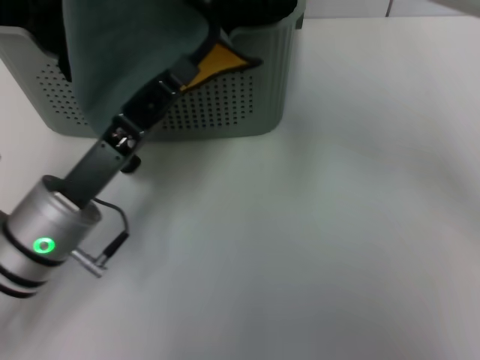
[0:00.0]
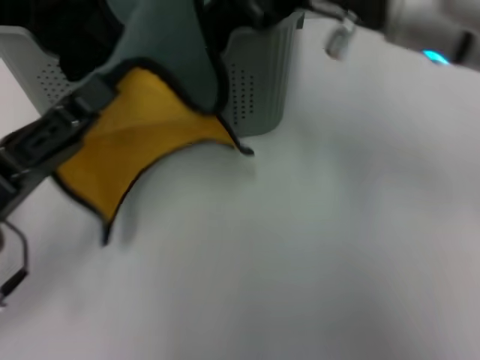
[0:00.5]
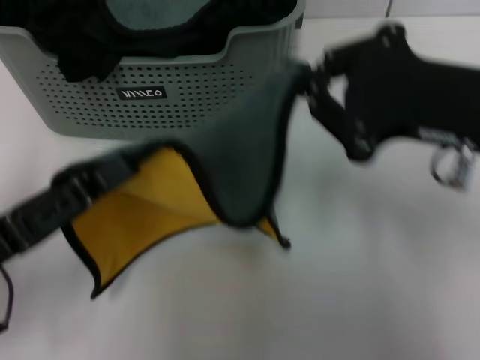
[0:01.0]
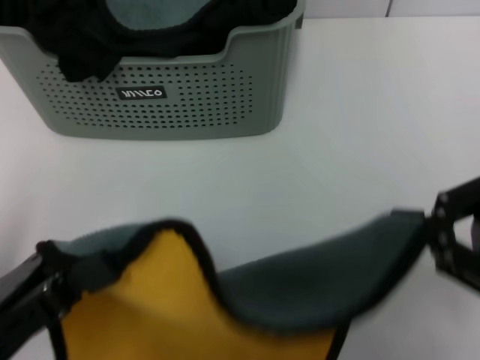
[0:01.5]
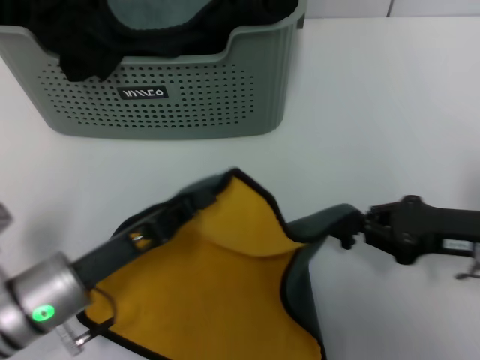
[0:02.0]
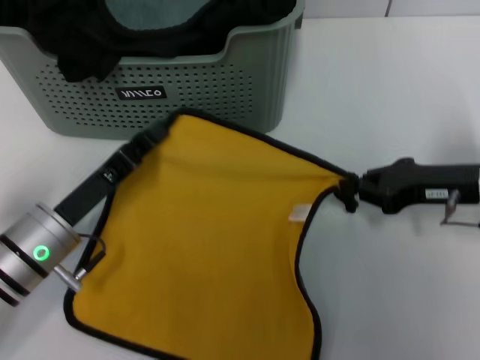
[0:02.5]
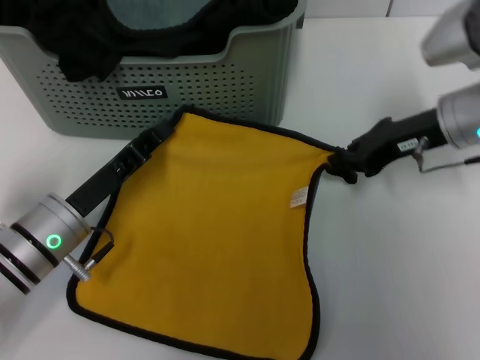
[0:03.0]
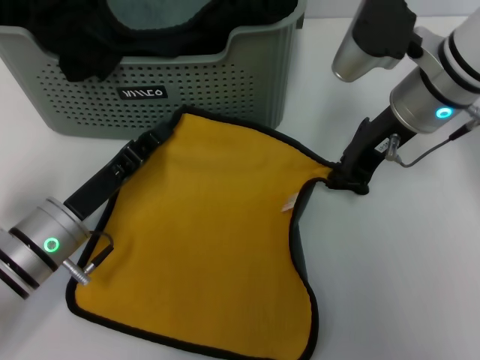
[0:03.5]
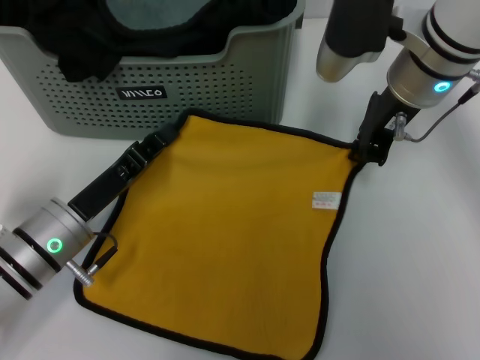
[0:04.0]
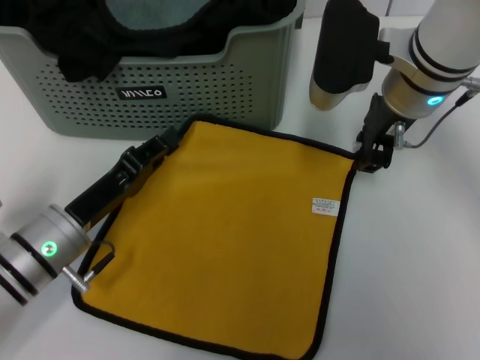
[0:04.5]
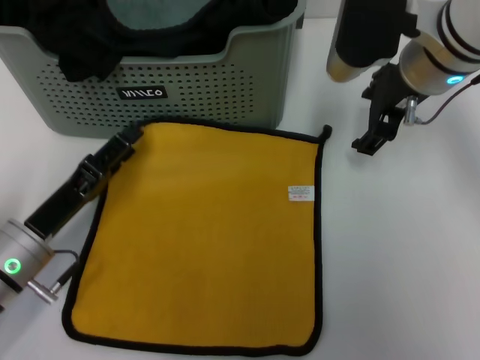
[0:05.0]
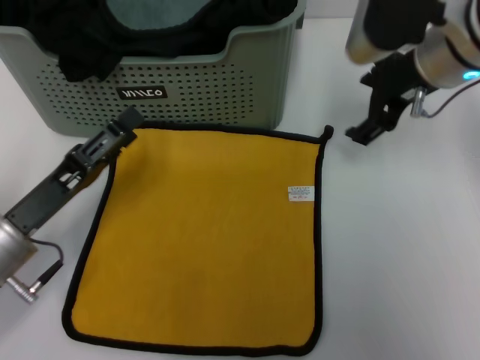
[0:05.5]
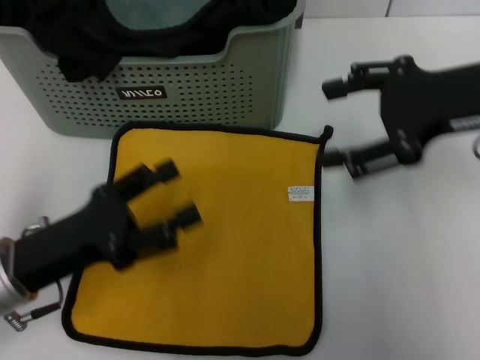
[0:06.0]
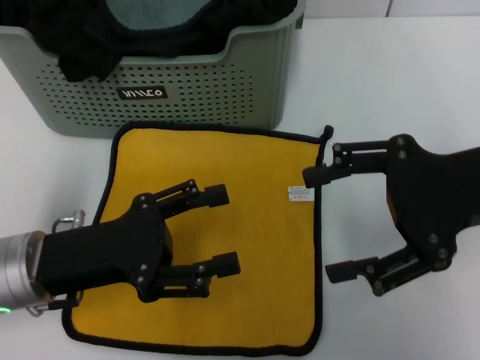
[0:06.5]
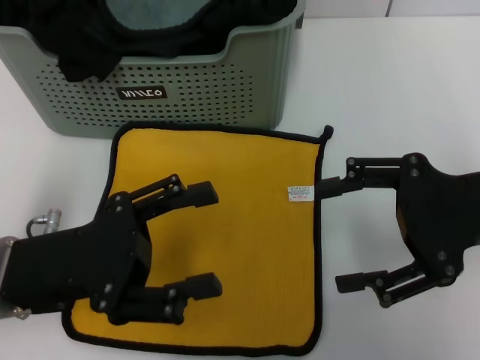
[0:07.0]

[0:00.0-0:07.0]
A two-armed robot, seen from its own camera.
Task of the whole recording: pick up the towel from the storage box and lay it flat on the table.
Step, 0:00.0 to 0:05.0: Spread the towel flat with the right gripper.
0:00.0 to 0:02.0: The right gripper travels downward and to the right by approximately 30 cm.
0:02.0 to 0:03.5: The left gripper moves about 5 cm, while the right gripper travels forward, to the left and upward by roughly 20 cm.
0:03.5 to 0:05.0: The left gripper opens its fingers. The right gripper opens its fingers.
0:05.0 to 0:07.0: The right gripper travels backward and to the right by roughly 15 cm. Meanwhile the left gripper is displaced upward by some 10 cm, and opens its fingers.

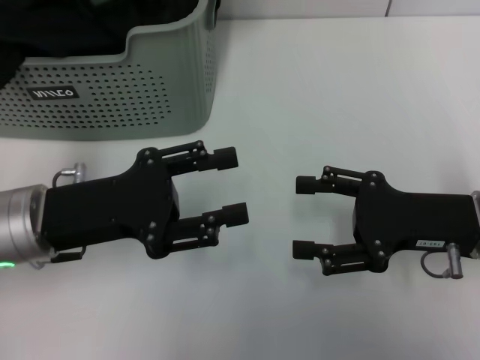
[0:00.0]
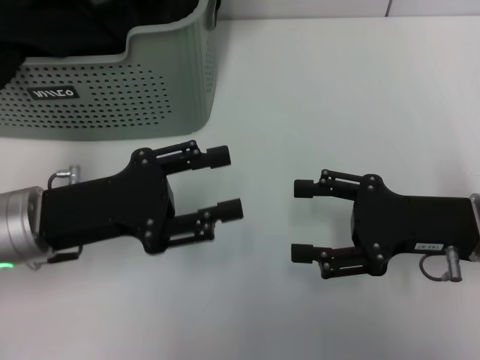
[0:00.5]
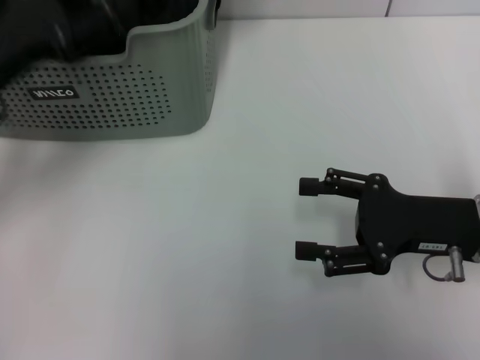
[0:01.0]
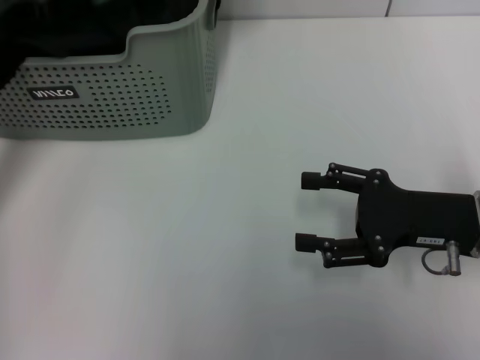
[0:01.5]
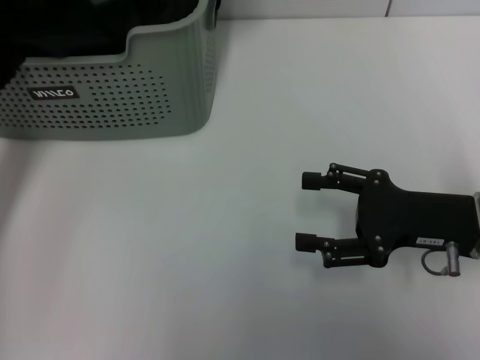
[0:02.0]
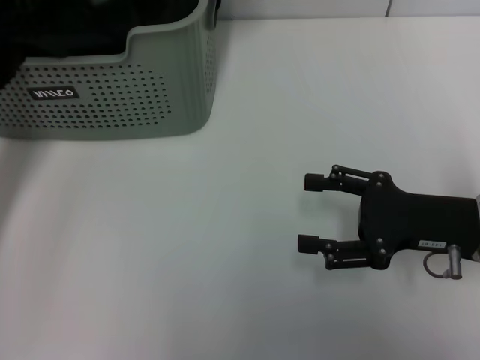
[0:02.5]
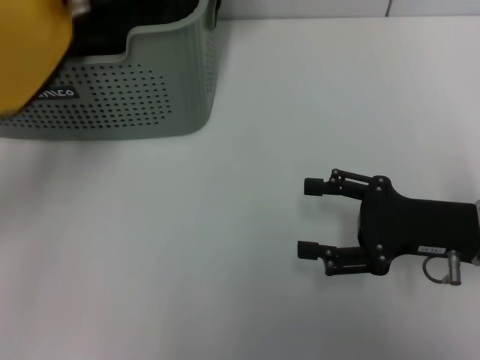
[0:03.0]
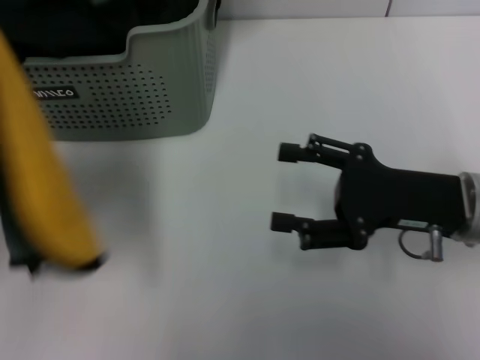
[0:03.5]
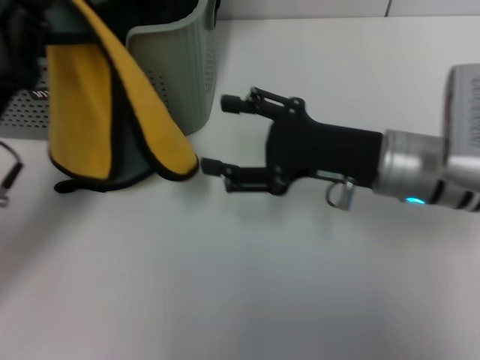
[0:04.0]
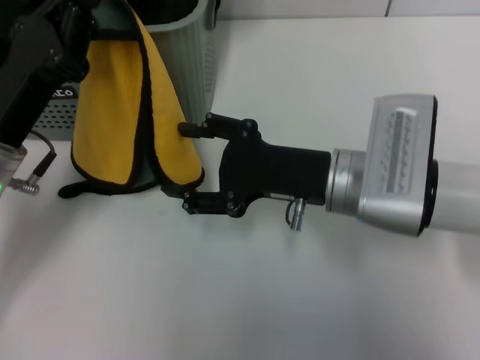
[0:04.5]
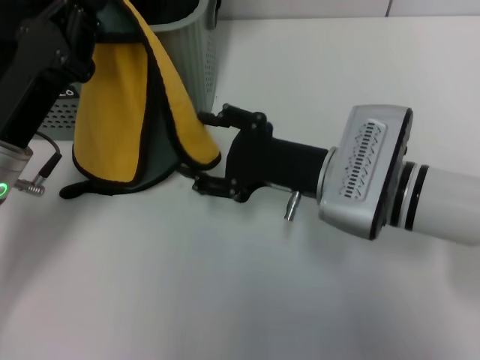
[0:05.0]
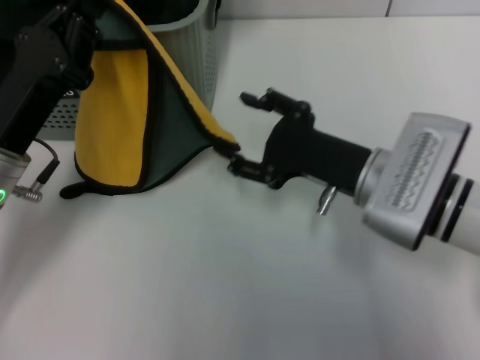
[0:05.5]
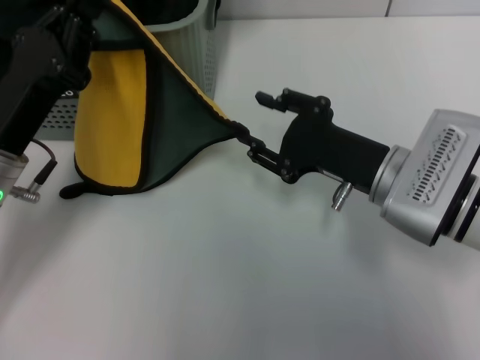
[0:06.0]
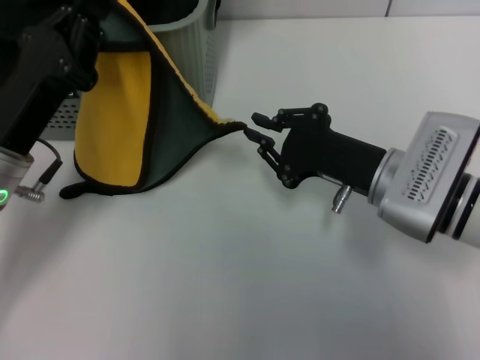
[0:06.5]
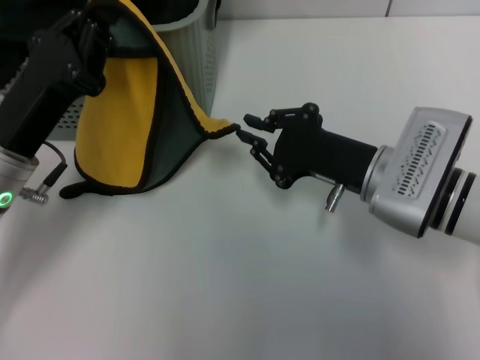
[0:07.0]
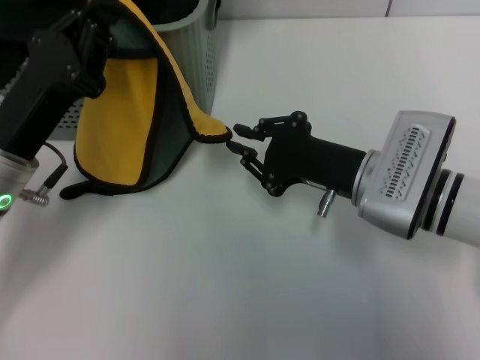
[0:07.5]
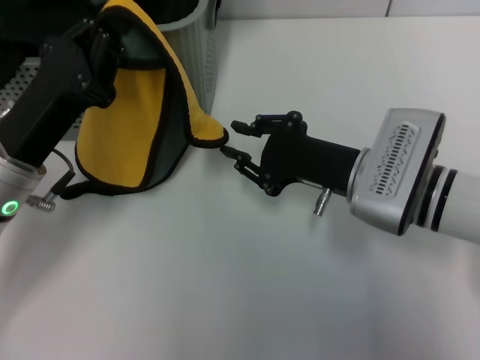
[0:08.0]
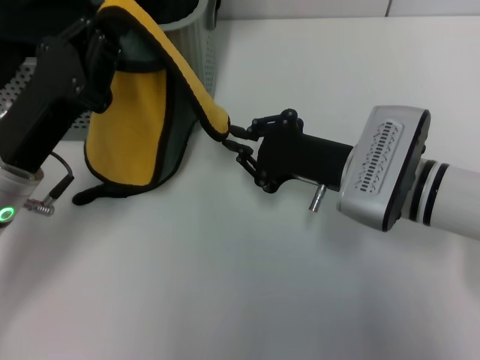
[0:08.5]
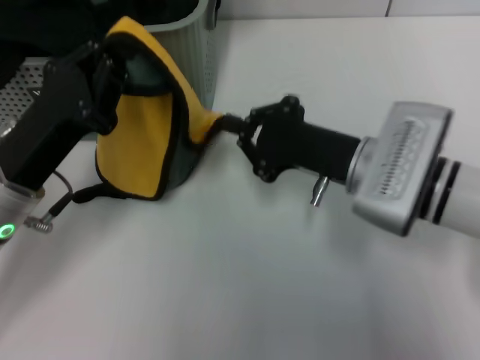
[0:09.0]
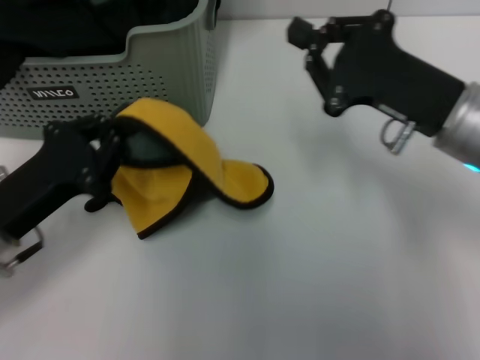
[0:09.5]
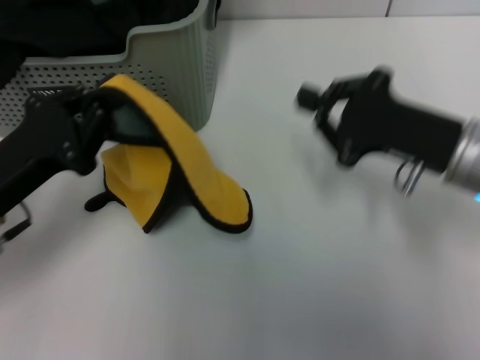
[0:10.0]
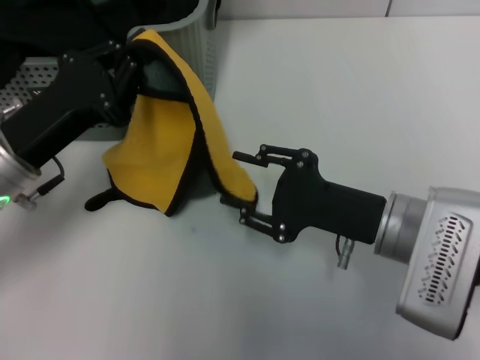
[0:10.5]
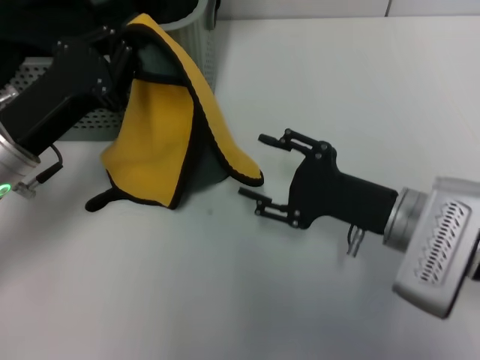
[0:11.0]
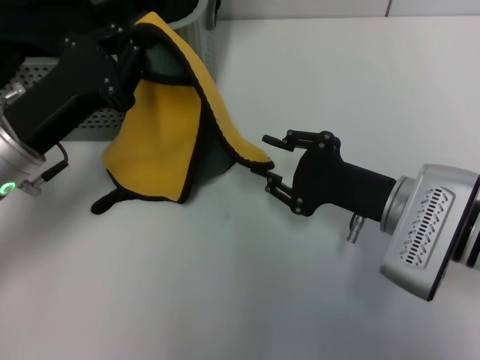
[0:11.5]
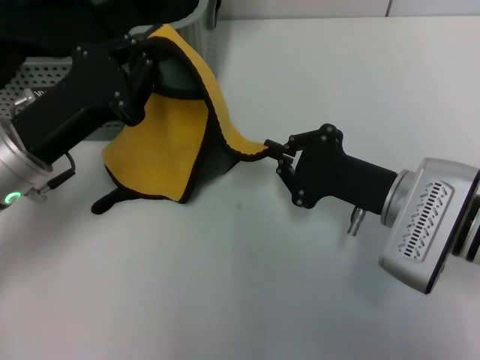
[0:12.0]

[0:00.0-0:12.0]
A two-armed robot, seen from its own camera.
Task of the whole recording: pick up the towel from the storage box and lay it flat on the table.
Step, 0:00.0 to 0:01.5: Pick up a towel with the left gripper.
Step, 0:02.0 to 0:11.5: Spread the towel flat with the left gripper.
0:00.0 to 0:02.0: The left gripper is displaced forward and to the left by some 15 cm, and closes.
0:02.0 to 0:04.0: The right gripper heads to the left, covering about 10 cm; the left gripper shifts approximately 10 cm backward, and closes.
0:06.0 to 0:08.0: The right gripper closes up.
0:08.0 to 0:10.0: The right gripper is displaced to the right by approximately 5 cm.
0:10.0 to 0:12.0: The right gripper travels downward by approximately 5 cm, and opens, then closes again, while the left gripper moves some 5 cm.

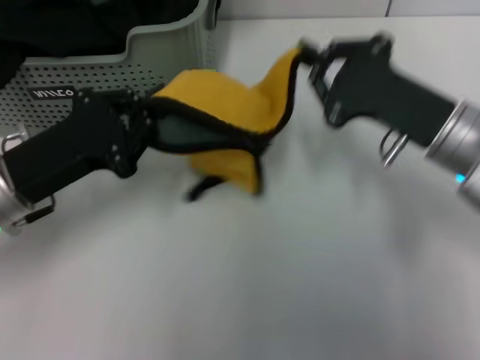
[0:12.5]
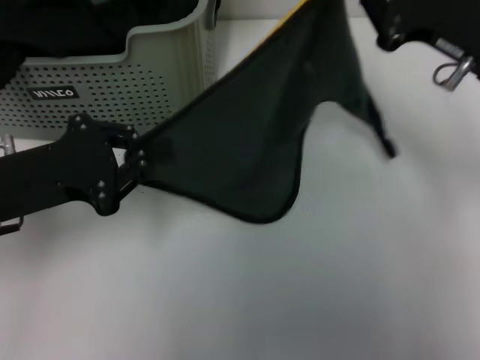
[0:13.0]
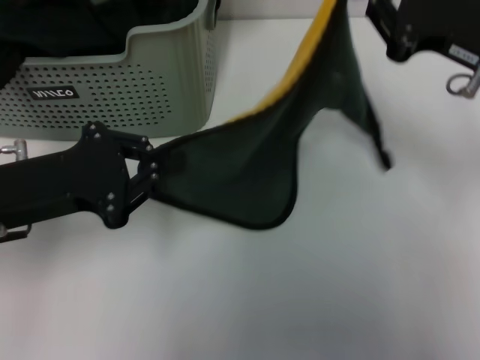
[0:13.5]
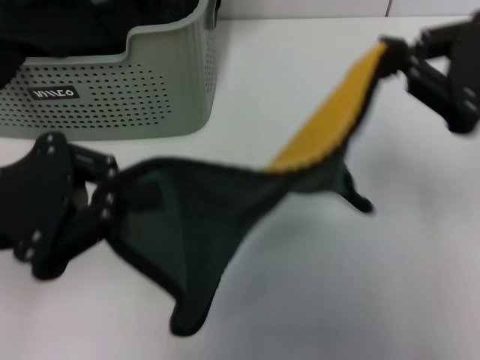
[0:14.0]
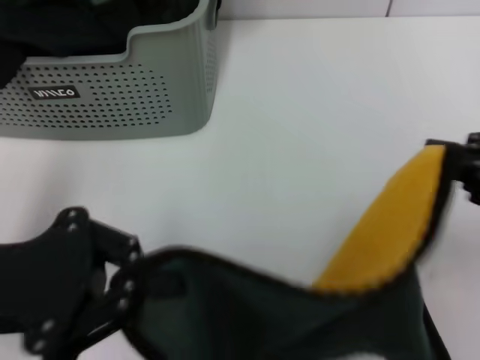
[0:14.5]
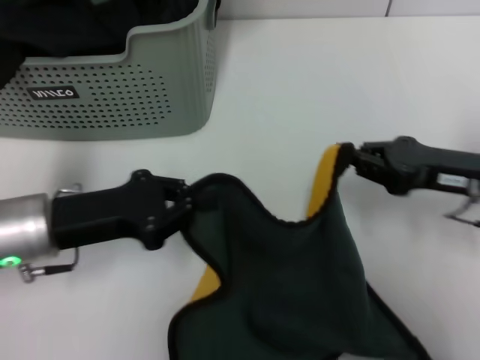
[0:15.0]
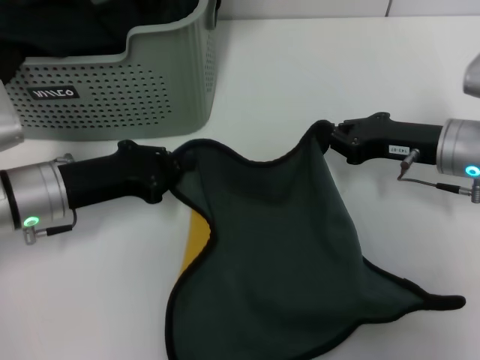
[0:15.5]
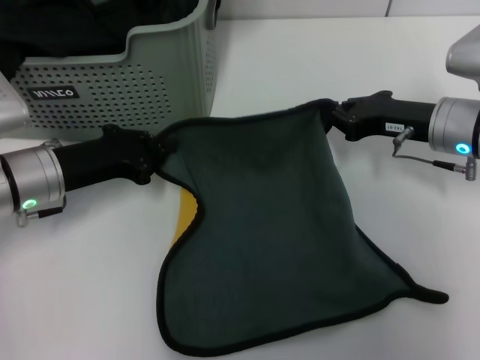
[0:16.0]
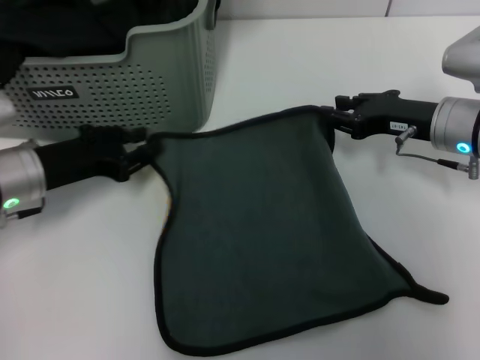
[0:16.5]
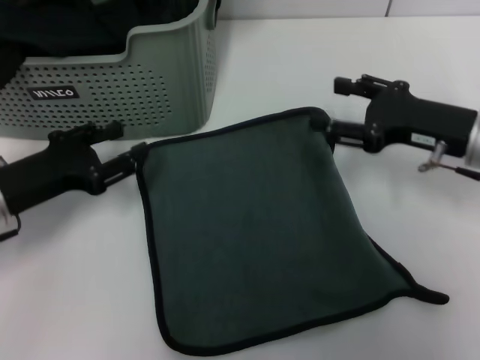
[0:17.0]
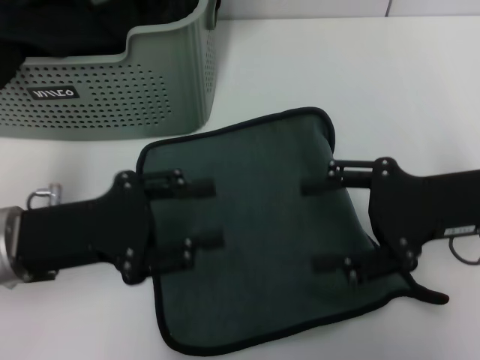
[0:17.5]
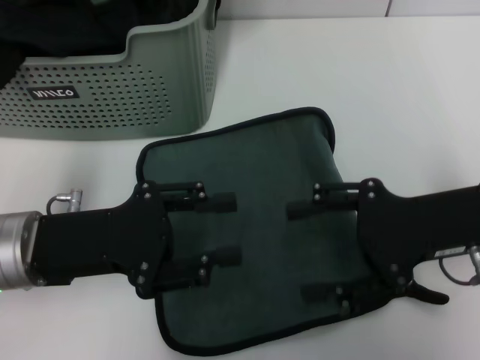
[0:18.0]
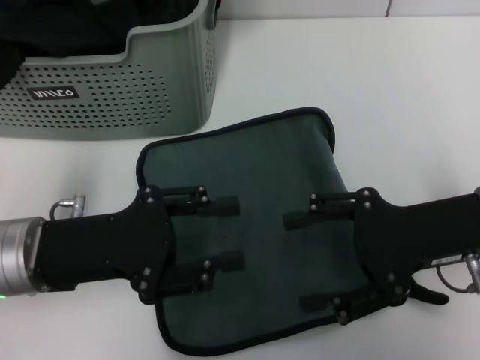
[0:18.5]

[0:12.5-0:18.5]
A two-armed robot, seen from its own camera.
Task of the whole recording: pick up the towel from the storage box and lay it flat on the table.
Step, 0:12.5 to 0:16.5: Spread the towel flat with the right gripper.
0:12.5 to 0:14.5: The right gripper travels backward, to the right and upward by approximately 15 cm; the left gripper is displaced backward and upward by about 10 cm.
0:14.5 to 0:16.5: Both grippers move forward and downward, about 20 cm.
0:16.5 to 0:18.5: Both grippers move backward, approximately 10 cm. The left gripper opens. The right gripper opens up.
